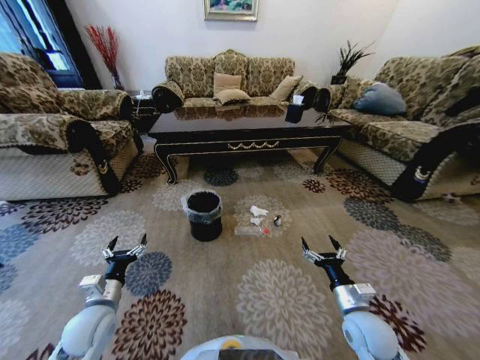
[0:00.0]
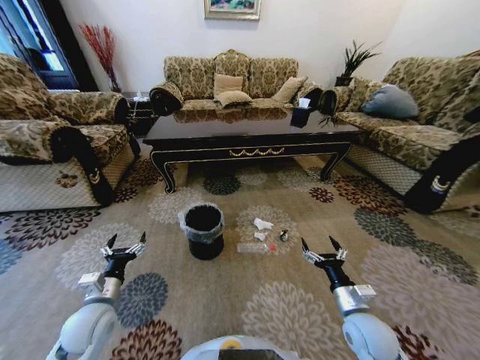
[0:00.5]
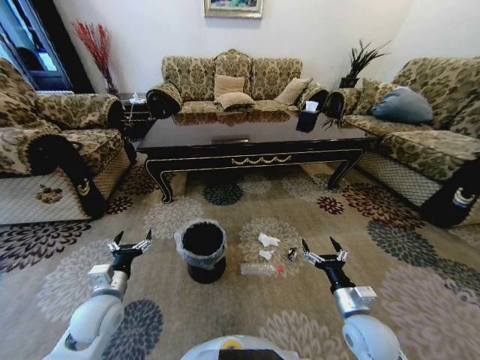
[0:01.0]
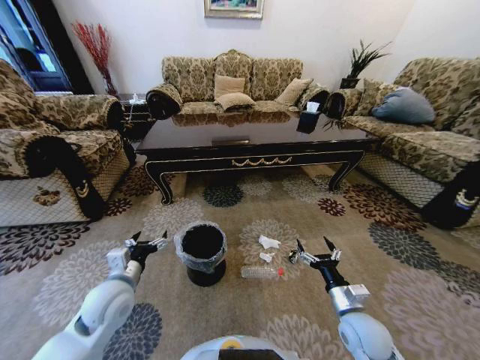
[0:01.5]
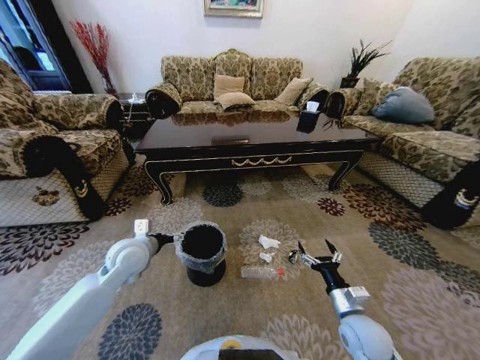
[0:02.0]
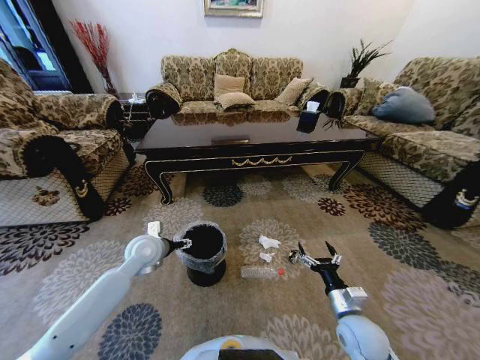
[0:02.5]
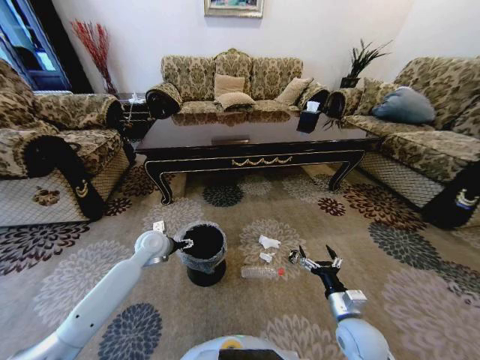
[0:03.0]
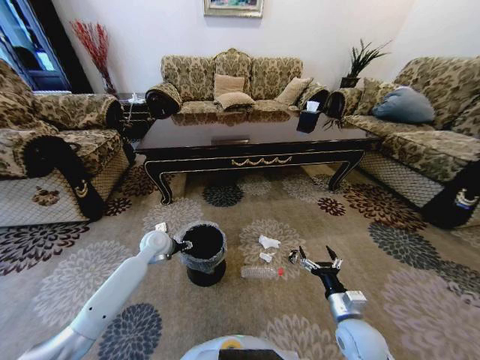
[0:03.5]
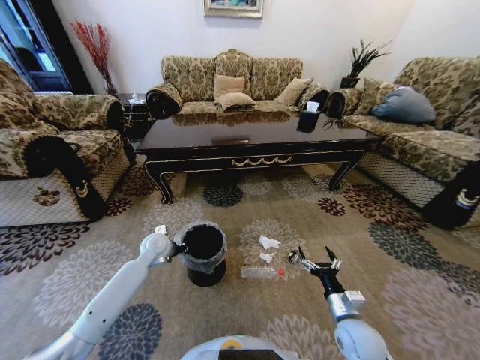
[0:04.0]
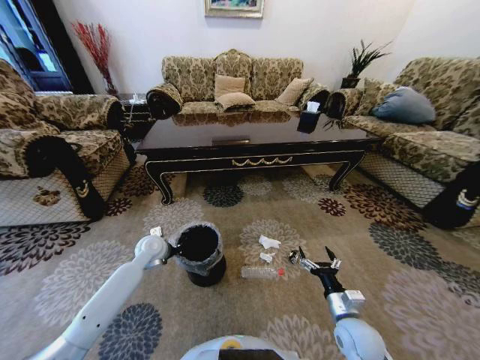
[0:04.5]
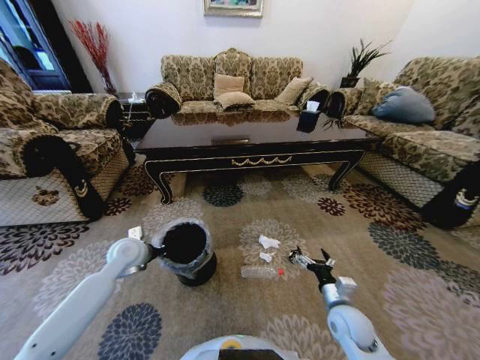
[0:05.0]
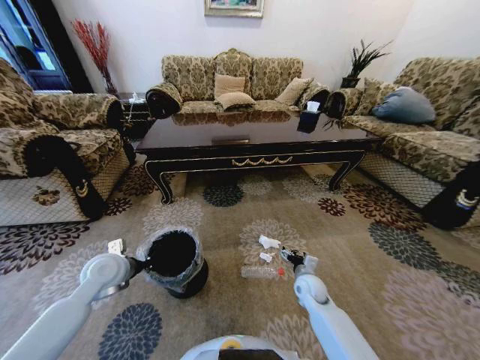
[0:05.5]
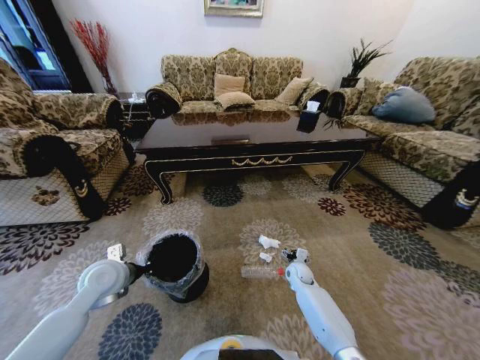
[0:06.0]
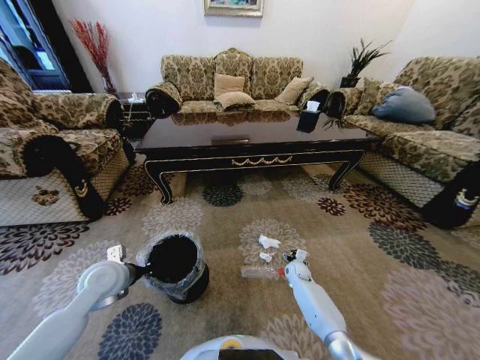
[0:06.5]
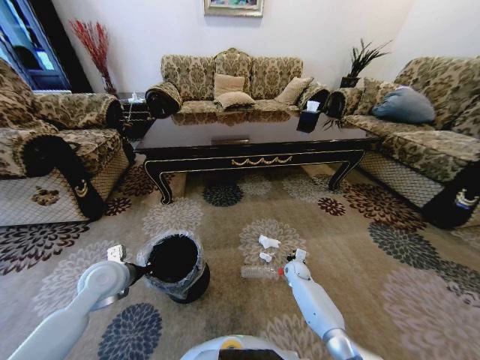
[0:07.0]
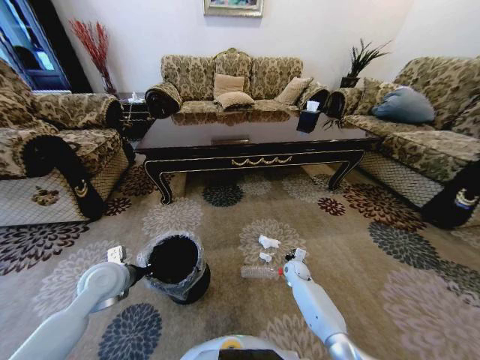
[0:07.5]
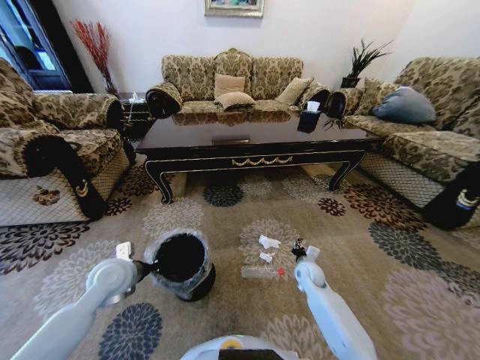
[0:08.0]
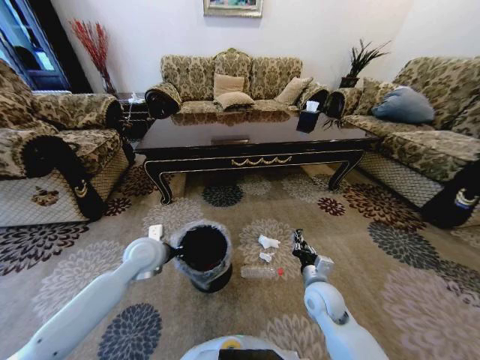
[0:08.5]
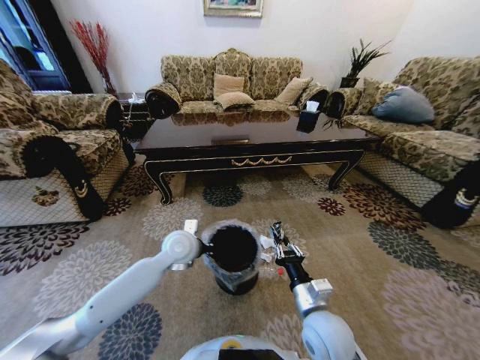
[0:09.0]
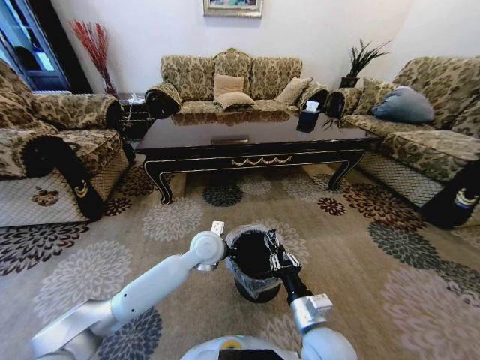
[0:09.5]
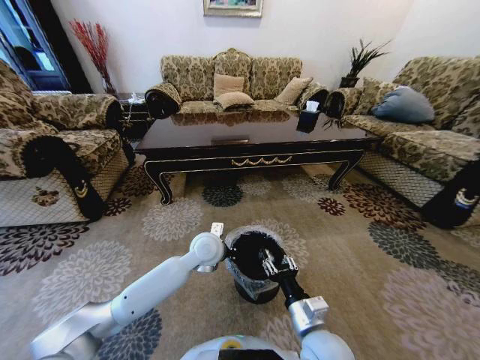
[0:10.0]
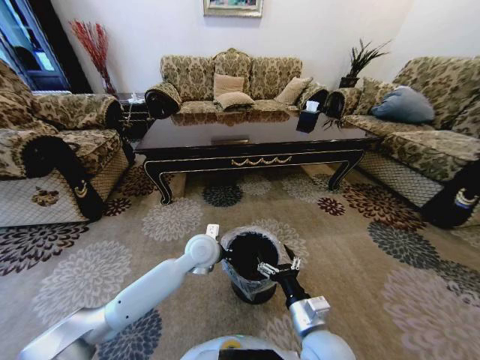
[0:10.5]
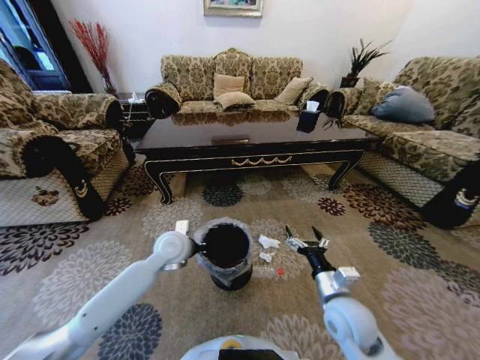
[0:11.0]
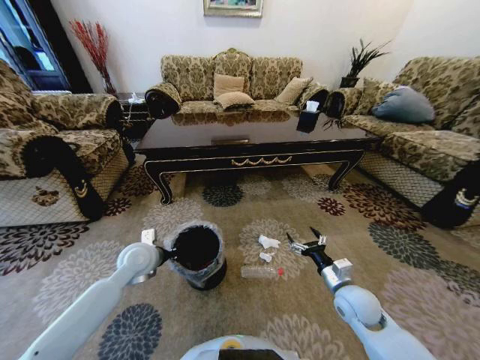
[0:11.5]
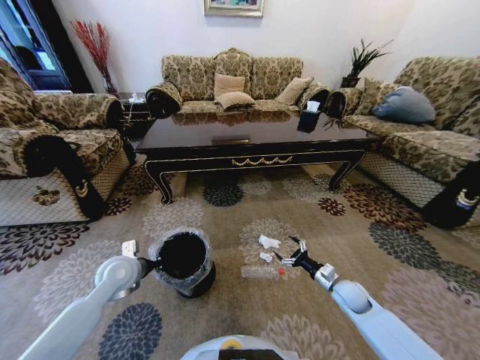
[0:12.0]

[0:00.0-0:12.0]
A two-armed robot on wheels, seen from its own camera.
Task of the whole recording: Move to the front of the table and pick up the trash from the floor, then place it into the trash bin.
0:00.0 to 0:02.0: The left gripper shifts approximately 15 cm forward, upward and to the right.
0:02.0 to 0:04.0: The left gripper shifts roughly 15 cm downward and forward, and closes its fingers.
0:04.0 to 0:06.0: The right gripper travels forward and downward by about 25 cm, while the left gripper is displaced backward, to the left and upward by some 15 cm.
0:06.0 to 0:08.0: The right gripper shifts by approximately 5 cm, and closes its fingers.
0:08.0 to 0:10.0: The right gripper moves backward, upward and to the left, about 30 cm, while the left gripper travels to the right by roughly 25 cm.
0:10.0 to 0:12.0: The left gripper moves to the left, some 25 cm. Meanwhile the right gripper travels to the right, forward and downward by approximately 25 cm, and opens its fingers.

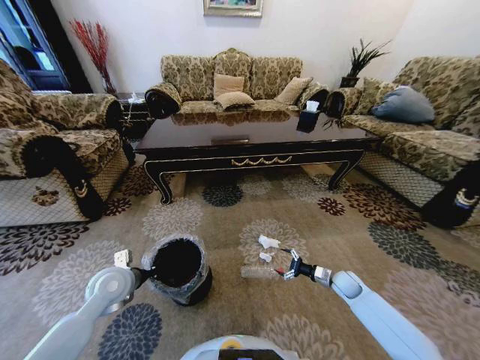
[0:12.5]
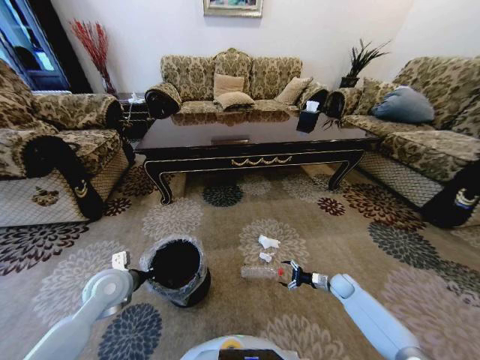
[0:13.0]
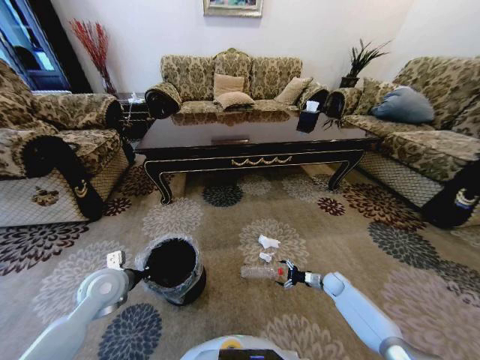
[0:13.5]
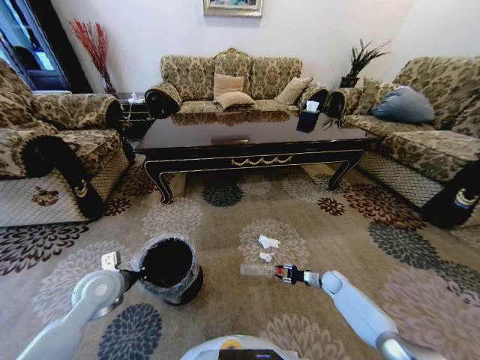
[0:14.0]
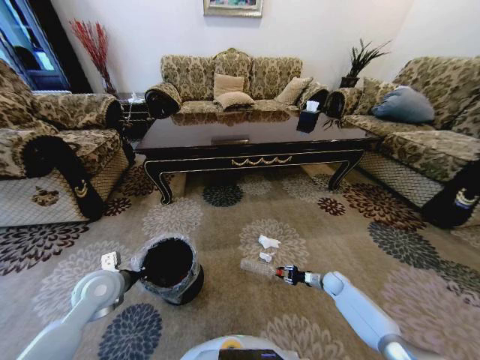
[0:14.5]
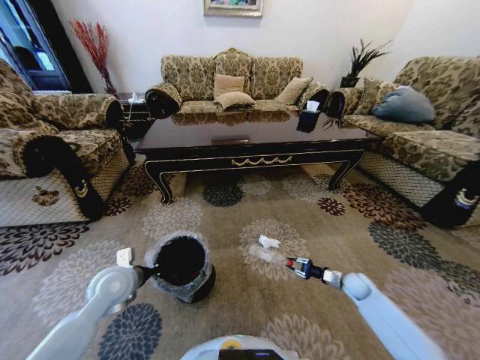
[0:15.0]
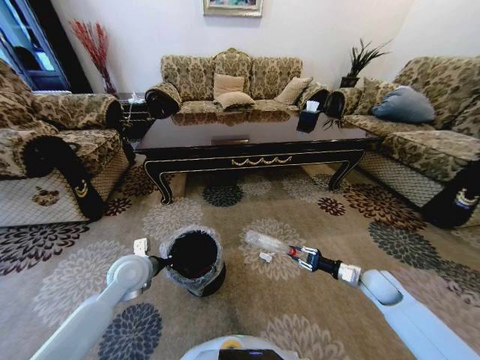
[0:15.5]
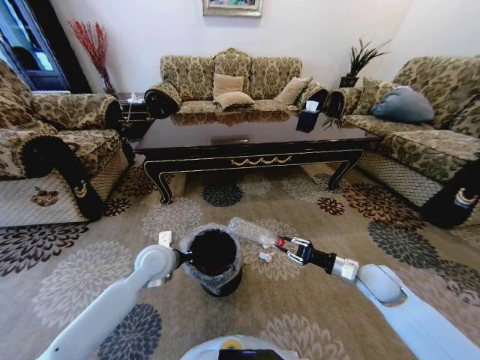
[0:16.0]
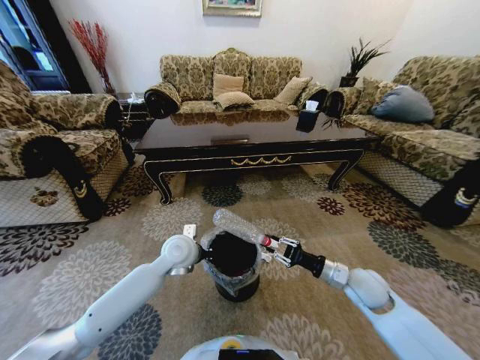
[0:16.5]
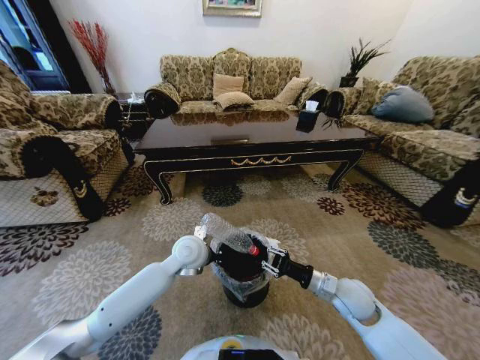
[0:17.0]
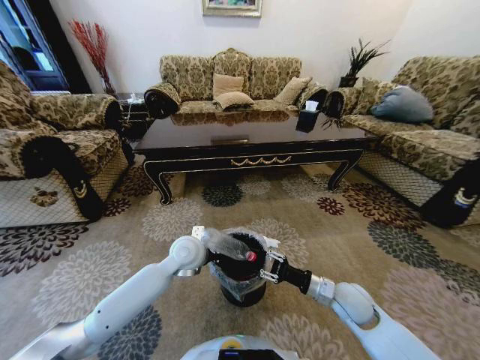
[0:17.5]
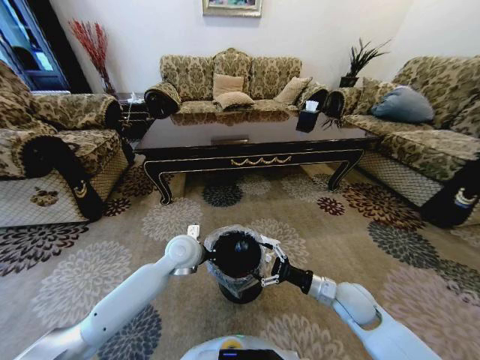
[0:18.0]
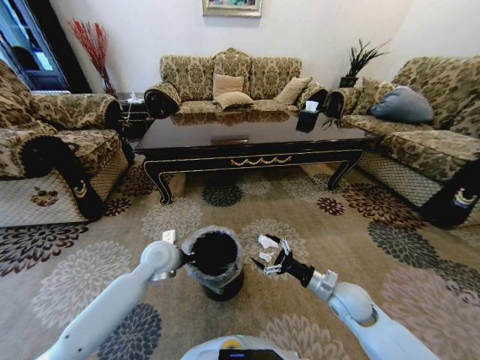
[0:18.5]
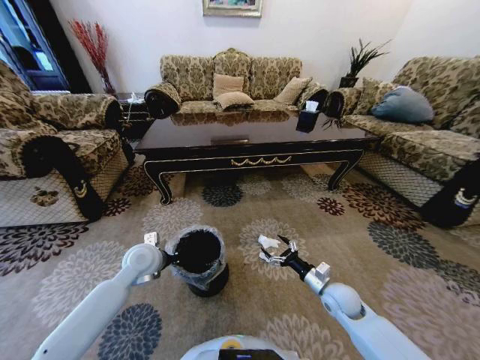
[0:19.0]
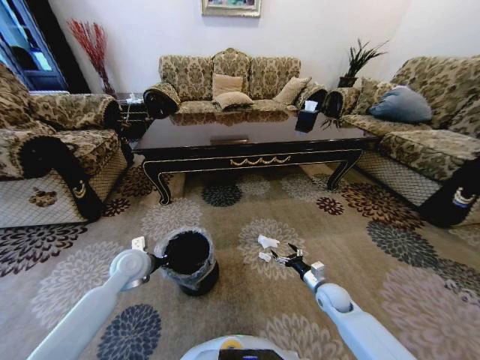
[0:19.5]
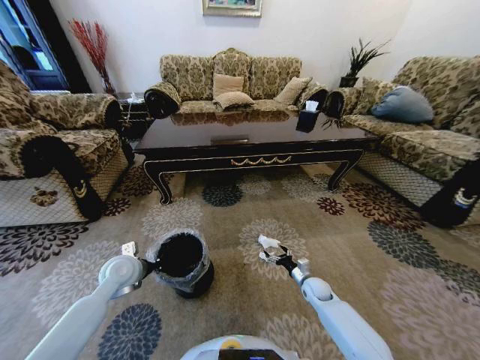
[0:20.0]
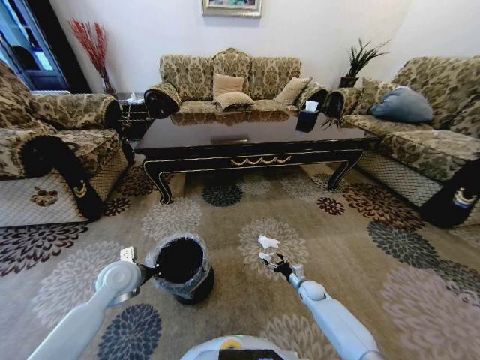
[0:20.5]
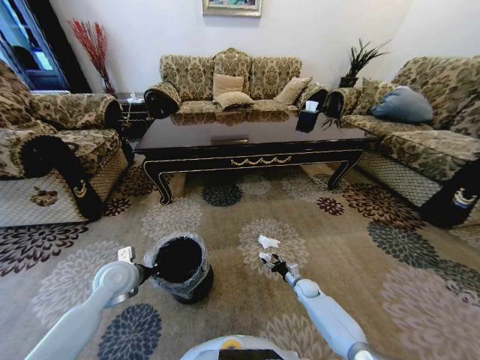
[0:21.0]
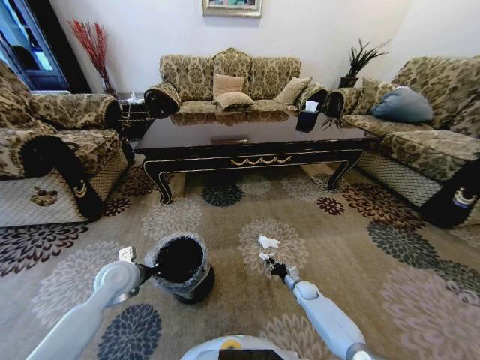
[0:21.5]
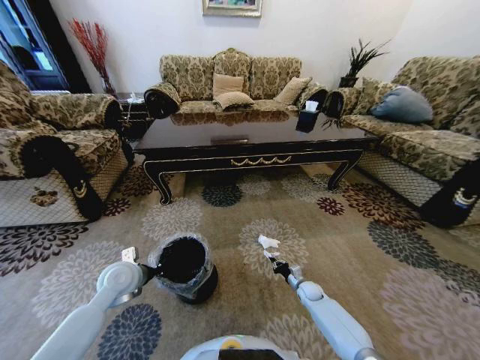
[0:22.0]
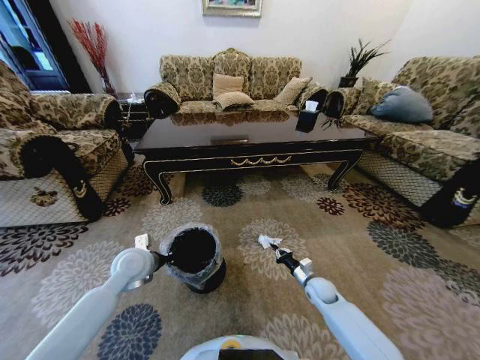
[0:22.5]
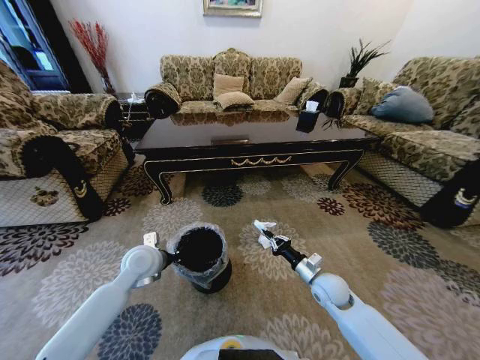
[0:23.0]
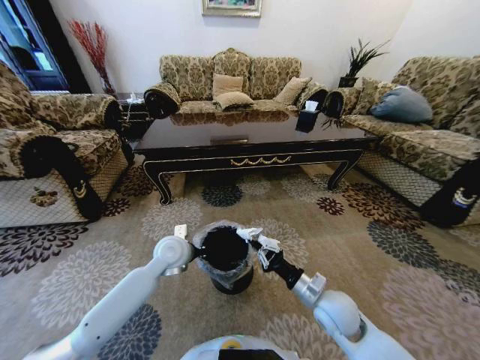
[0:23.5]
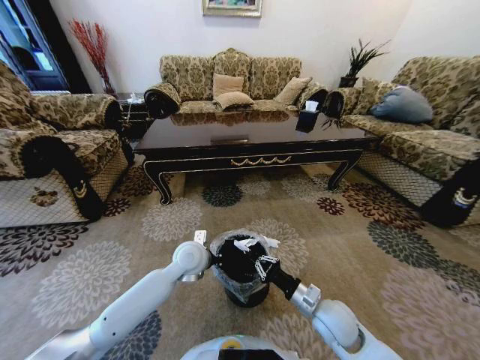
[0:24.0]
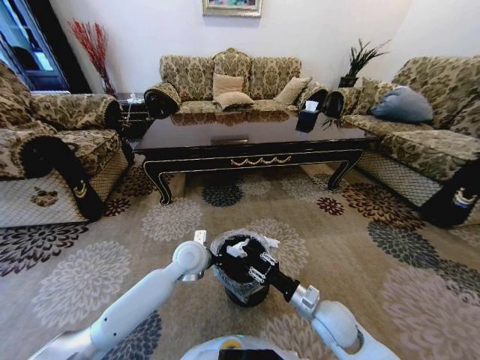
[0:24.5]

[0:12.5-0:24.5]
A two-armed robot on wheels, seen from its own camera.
Task of the whole recording: Move to the front of the table and pick up the trash from the floor, then place it into the trash bin.
0:12.5 to 0:14.5: The right gripper is displaced downward by some 5 cm, and closes.
0:14.5 to 0:16.5: The left gripper is displaced to the right and forward by about 20 cm. Meanwhile the right gripper heads upward, covering about 25 cm.
0:16.5 to 0:18.5: The right gripper changes place by approximately 5 cm, and opens; the left gripper is displaced to the left by about 5 cm.
0:18.5 to 0:20.5: The right gripper is displaced downward and forward by roughly 25 cm. The left gripper travels to the left by roughly 10 cm.
0:20.5 to 0:22.5: The right gripper goes roughly 5 cm upward, and closes.
0:22.5 to 0:24.5: The right gripper goes some 20 cm upward, backward and to the left. Meanwhile the left gripper is displaced to the right by approximately 15 cm.

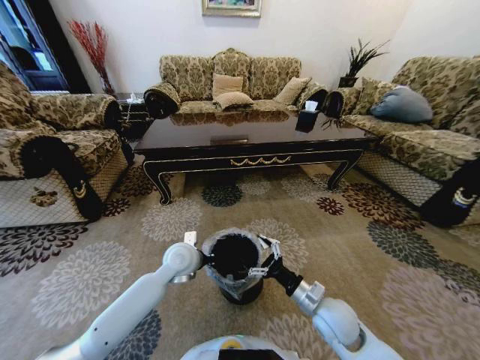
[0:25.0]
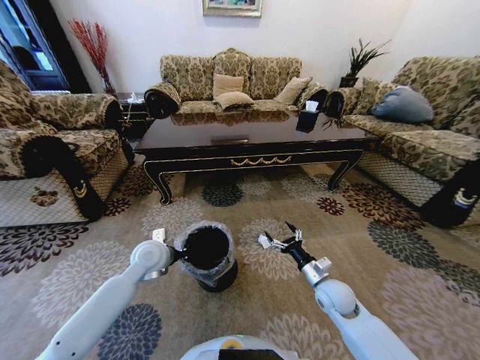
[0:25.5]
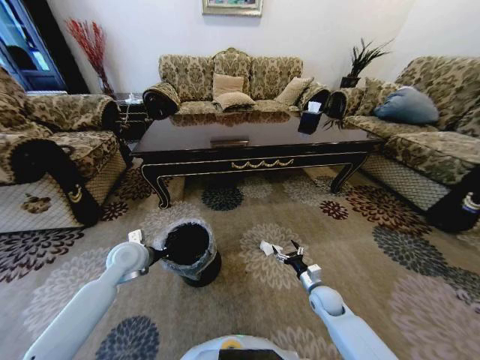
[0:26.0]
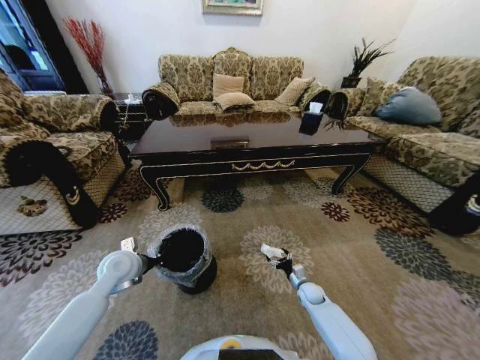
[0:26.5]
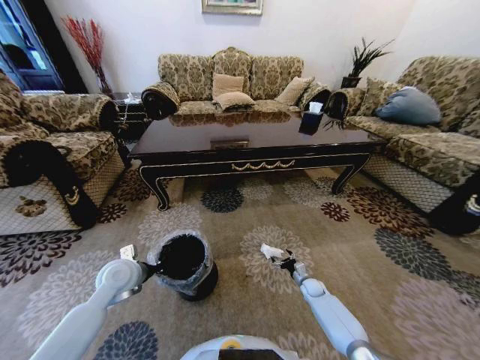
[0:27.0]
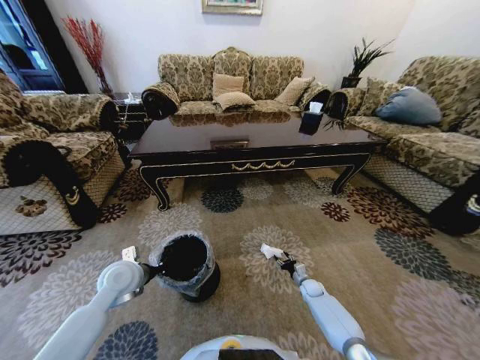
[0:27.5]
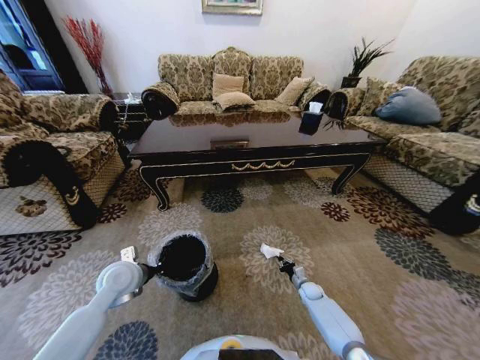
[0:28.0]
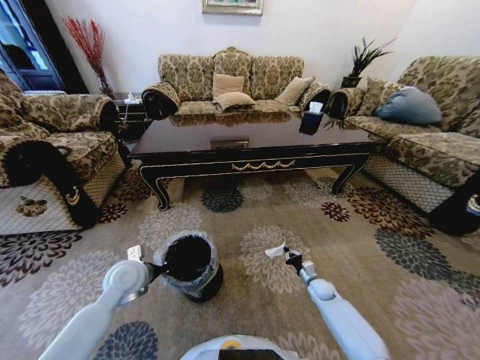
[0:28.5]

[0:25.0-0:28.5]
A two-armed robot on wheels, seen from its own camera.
Task of the whole recording: Move to the front of the table and pick up the trash from the floor, then place it into the trash bin.
0:25.0 to 0:27.0: The left gripper is displaced to the left by roughly 15 cm. Meanwhile the right gripper moves downward, forward and to the right, approximately 30 cm.
0:27.0 to 0:28.5: The right gripper closes its fingers.
